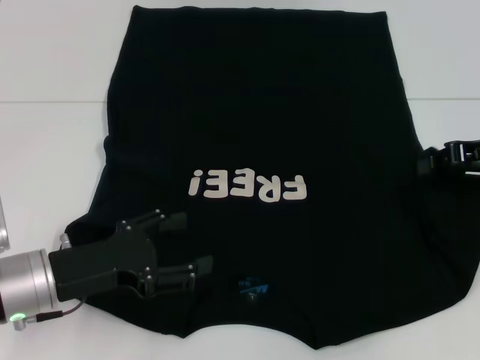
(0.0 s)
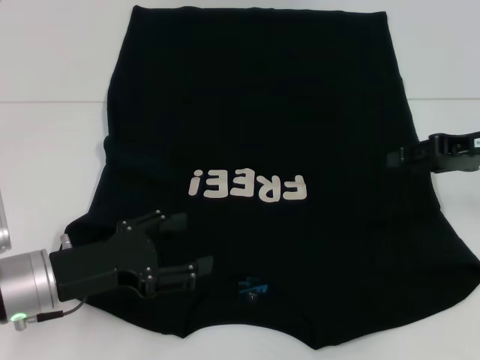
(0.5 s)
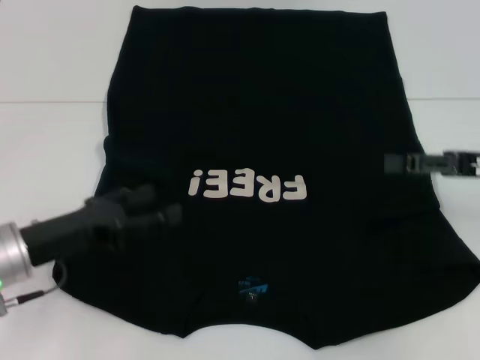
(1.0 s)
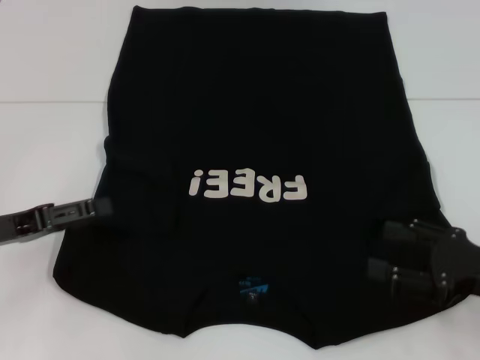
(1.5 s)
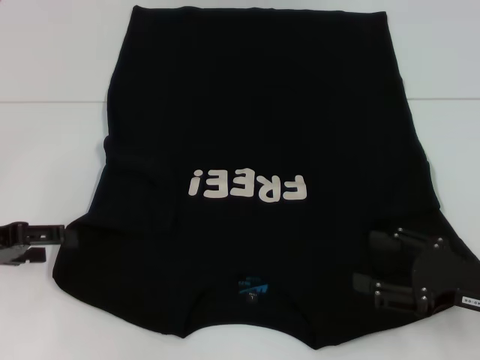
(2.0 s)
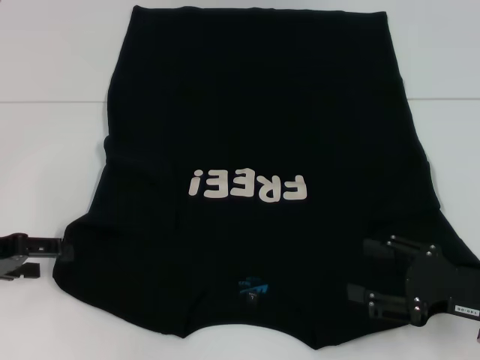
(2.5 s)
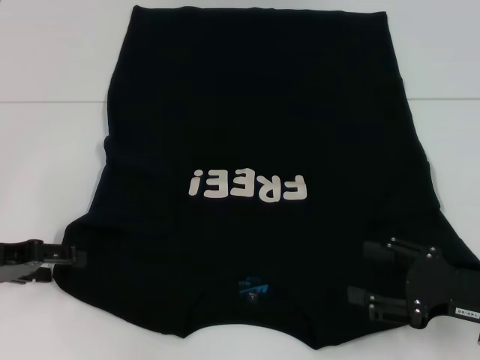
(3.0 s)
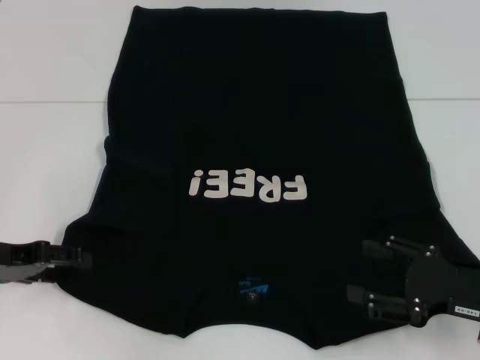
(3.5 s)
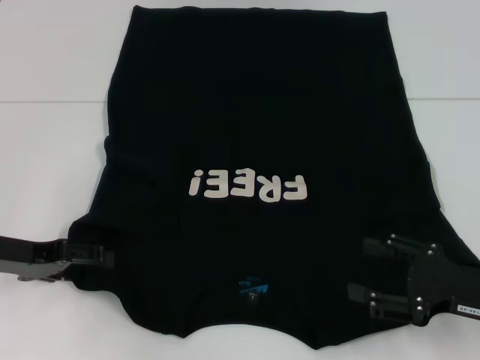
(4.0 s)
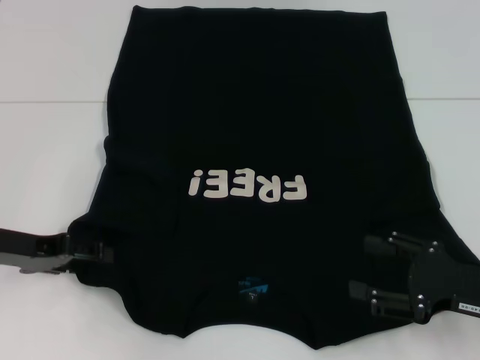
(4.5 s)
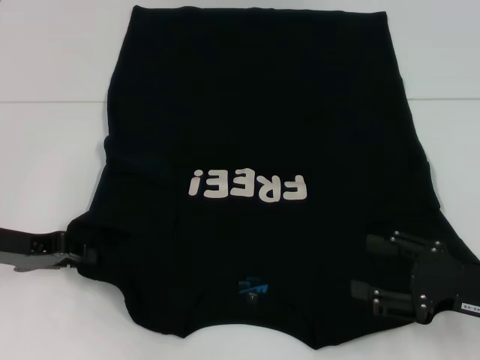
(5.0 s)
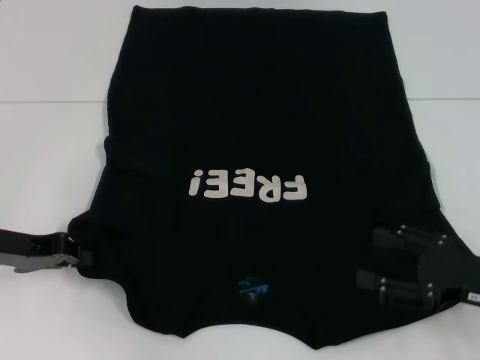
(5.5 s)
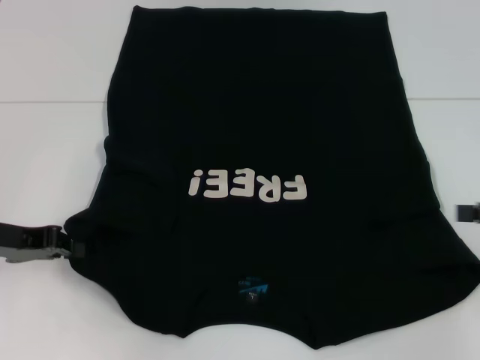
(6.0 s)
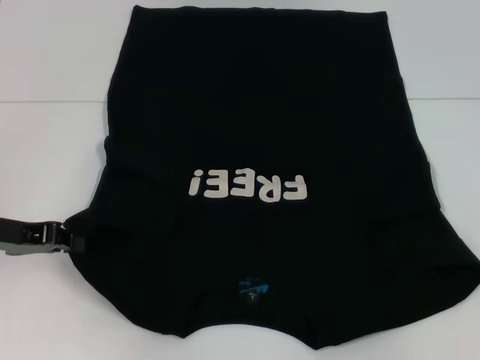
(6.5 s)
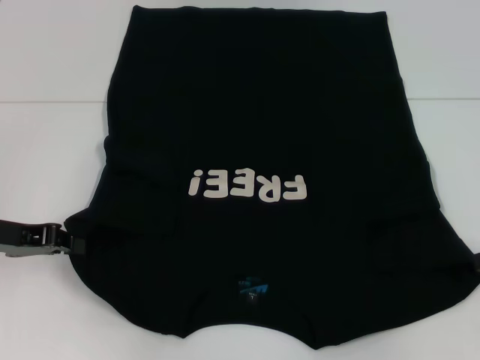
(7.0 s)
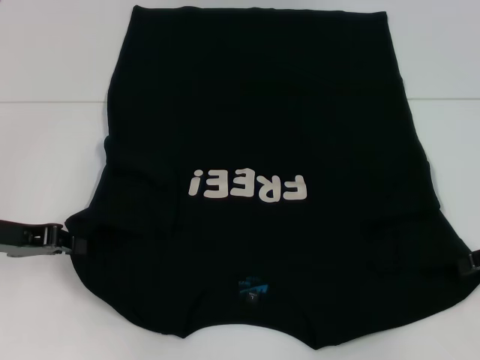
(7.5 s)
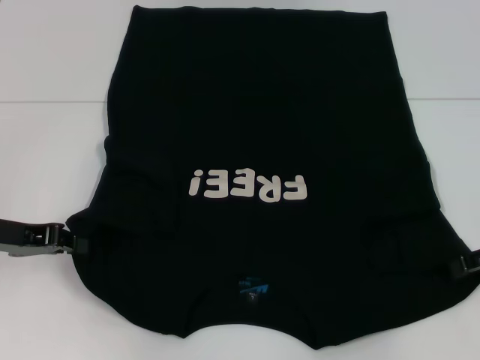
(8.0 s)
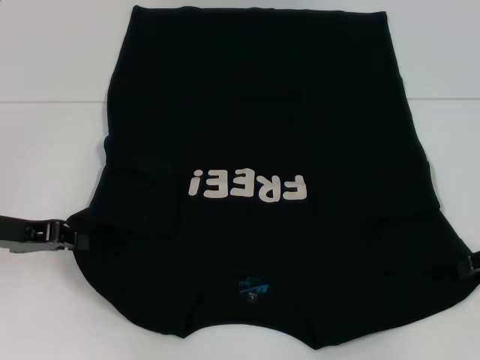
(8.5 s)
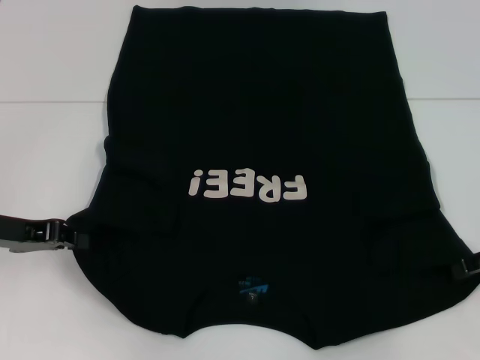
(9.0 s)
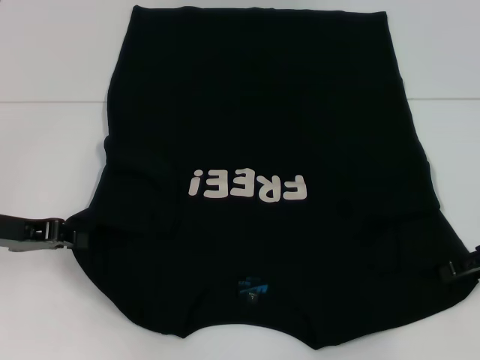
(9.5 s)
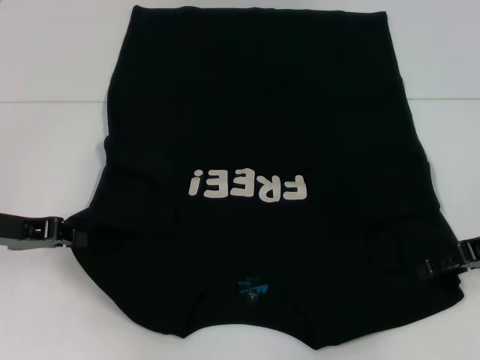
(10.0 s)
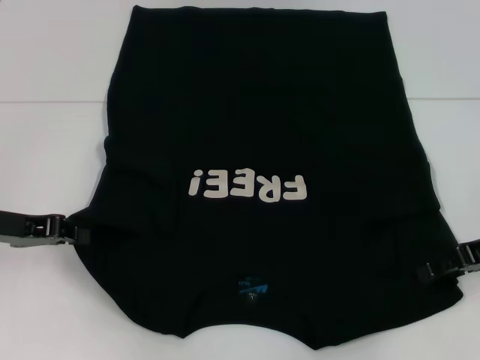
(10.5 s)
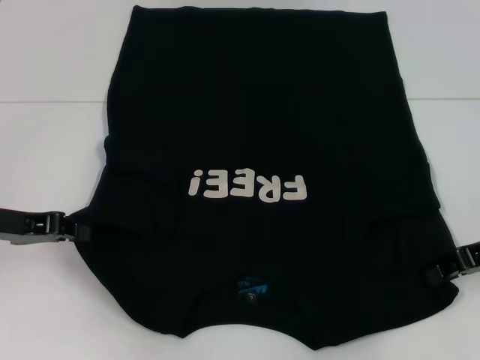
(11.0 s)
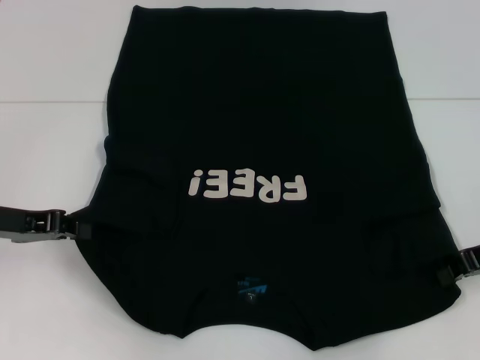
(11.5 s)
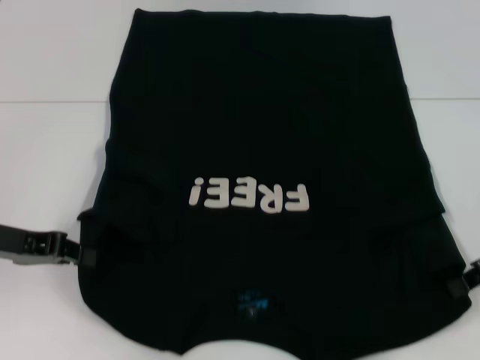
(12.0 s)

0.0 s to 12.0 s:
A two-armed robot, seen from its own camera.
Step, 1.5 to 5.0 s: Grab the bottom left corner with your left hand.
Step, 5.5 to 11.5 s: Grab the bottom right corner with your right hand.
0.0 to 2.0 s: The left gripper is displaced to the left by roughly 10 cm; the right gripper moves backward and downward, about 15 cm, and opens.
2.0 to 4.0 s: The grippers make only small movements.
4.0 to 6.0 s: The right gripper goes roughly 10 cm upward and to the right. The left gripper closes its fingers.
8.0 to 10.0 s: There are only small adjustments of the grippers.
10.0 to 12.0 s: The right gripper closes up.

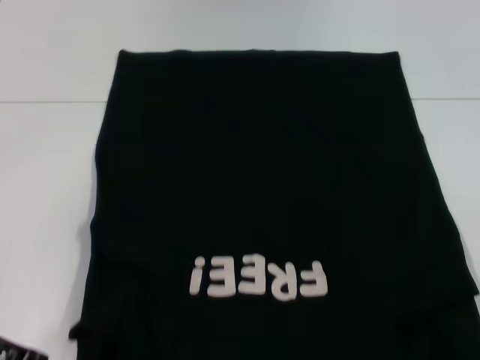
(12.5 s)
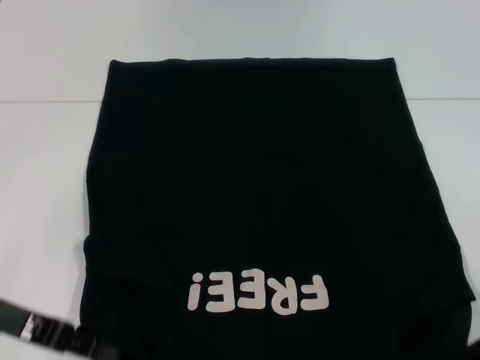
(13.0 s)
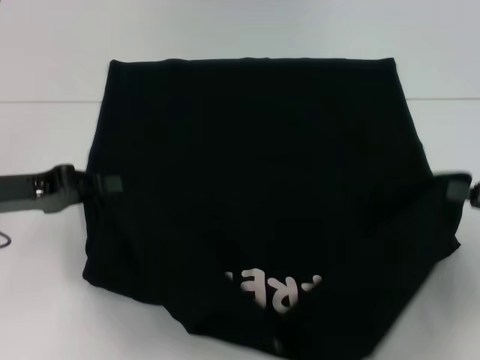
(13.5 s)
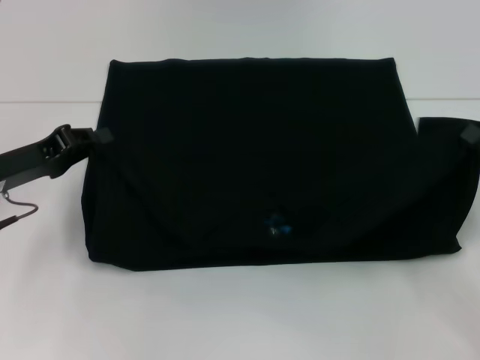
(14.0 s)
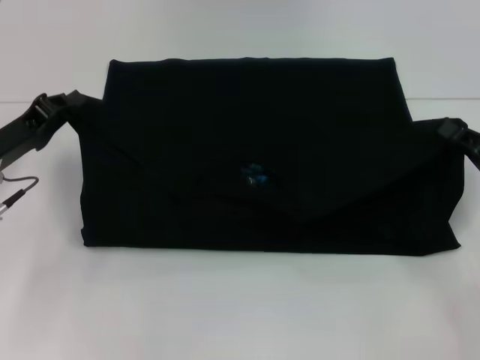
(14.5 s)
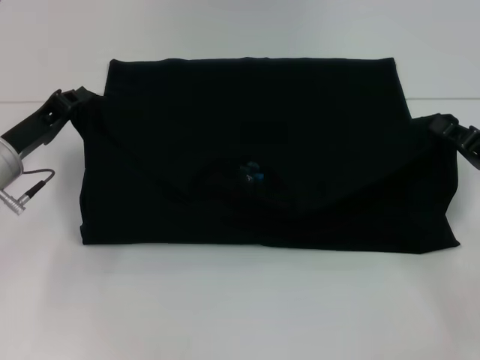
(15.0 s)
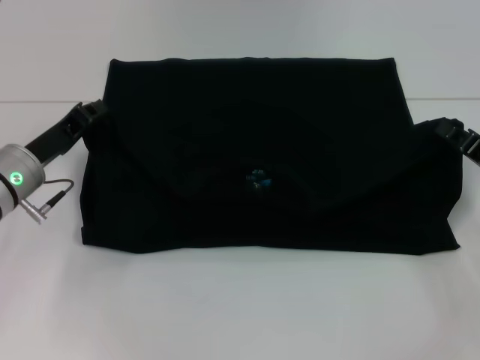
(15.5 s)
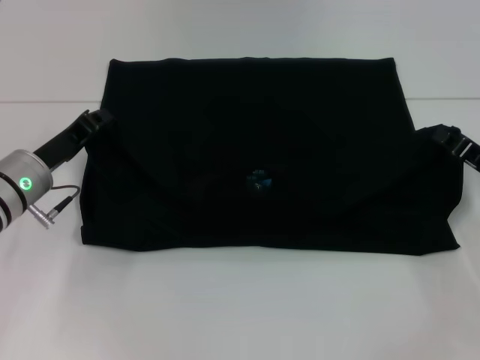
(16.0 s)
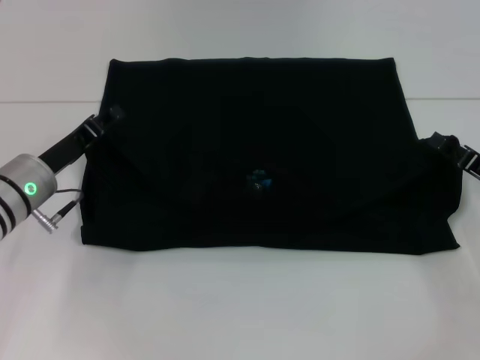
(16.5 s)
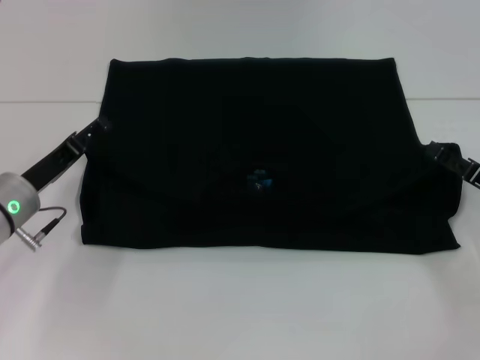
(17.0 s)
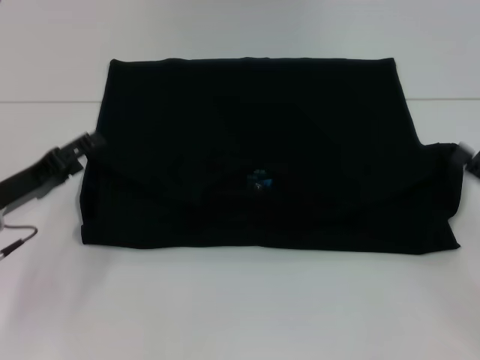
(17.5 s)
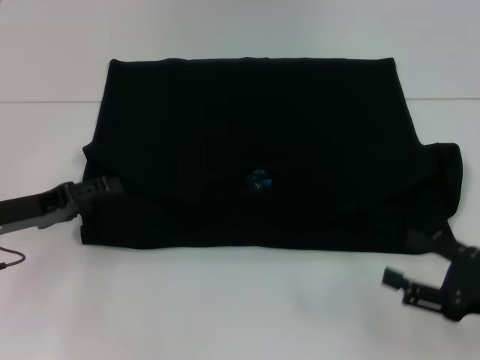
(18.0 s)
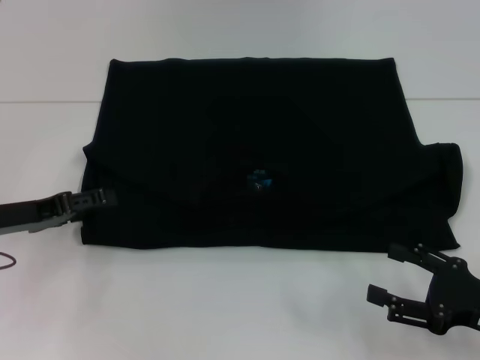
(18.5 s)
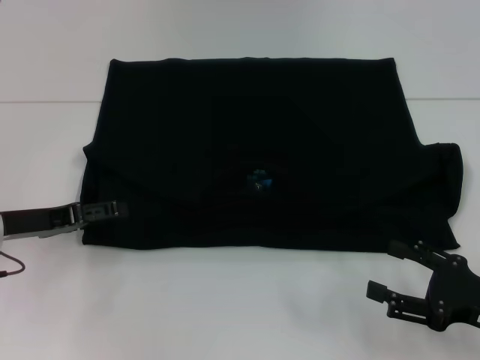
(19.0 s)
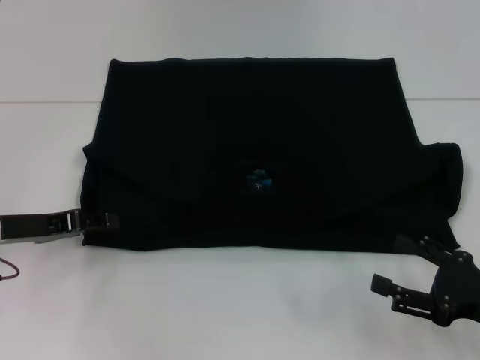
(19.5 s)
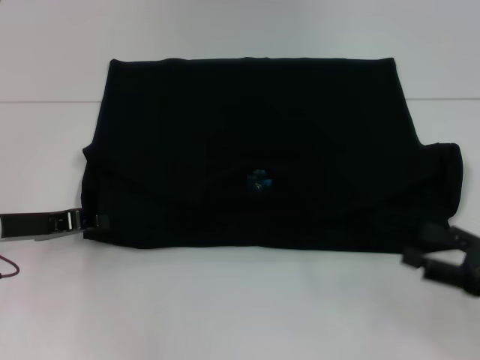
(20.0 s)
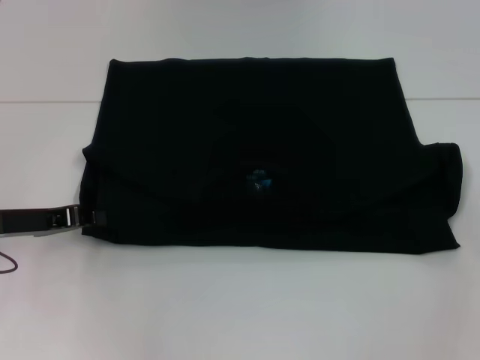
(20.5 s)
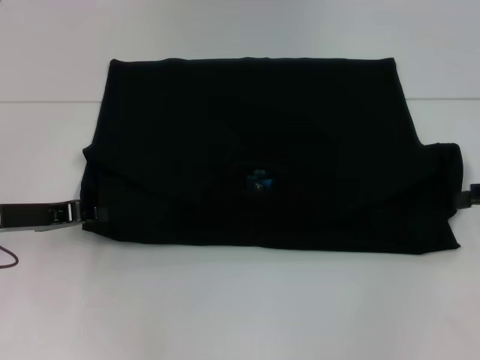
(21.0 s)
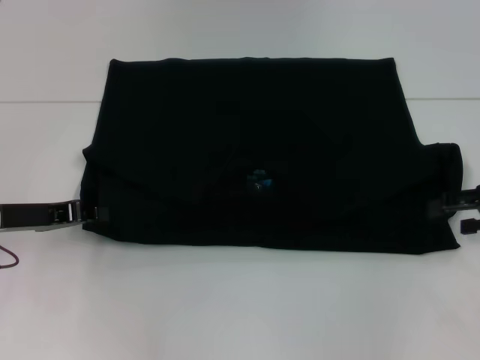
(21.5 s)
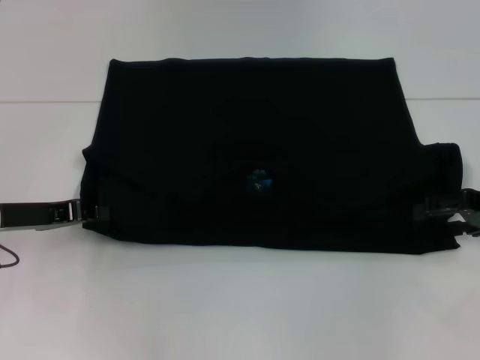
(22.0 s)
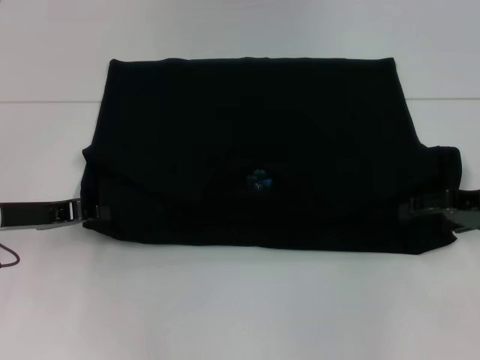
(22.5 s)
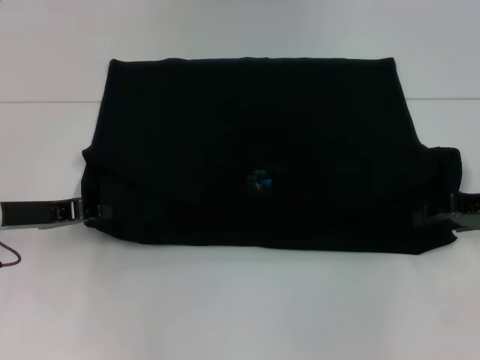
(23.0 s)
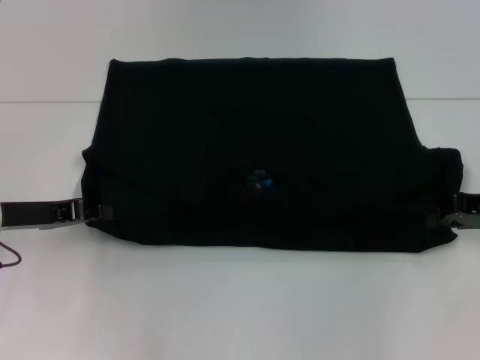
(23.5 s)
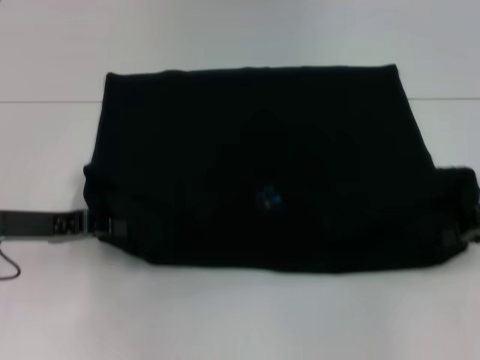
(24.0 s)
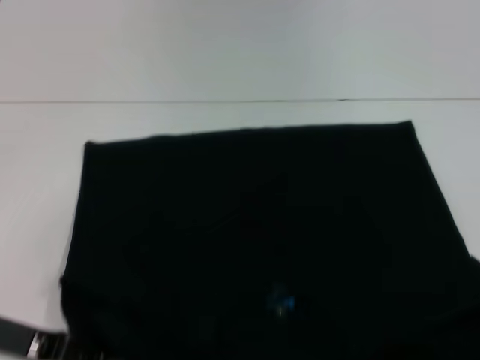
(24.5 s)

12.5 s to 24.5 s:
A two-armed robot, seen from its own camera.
Step, 12.5 to 17.0 s: Fold the clothes with your left hand.
Step, 12.5 to 17.0 s: Fold the clothes with your right hand.
12.5 to 14.5 s: The left gripper moves forward, approximately 10 cm; the right gripper travels downward by roughly 5 cm.
14.5 to 16.5 s: The left gripper moves some 5 cm.
16.5 to 18.5 s: The left gripper shifts approximately 5 cm to the left, and opens up; the right gripper goes approximately 10 cm backward, and opens its fingers.
18.5 to 20.5 s: The left gripper closes its fingers. The right gripper travels upward, to the right and forward by about 15 cm.
20.5 to 22.5 s: The right gripper heads to the left and forward, covering roughly 10 cm.
22.5 to 24.5 s: The grippers both shift backward by roughly 10 cm. The right gripper closes its fingers.

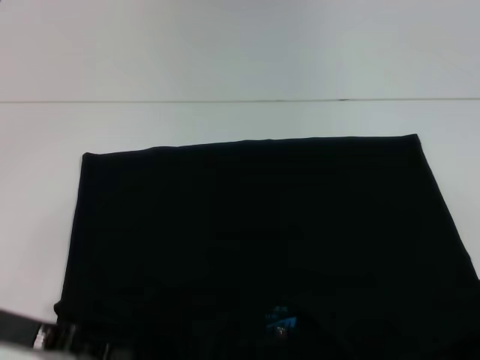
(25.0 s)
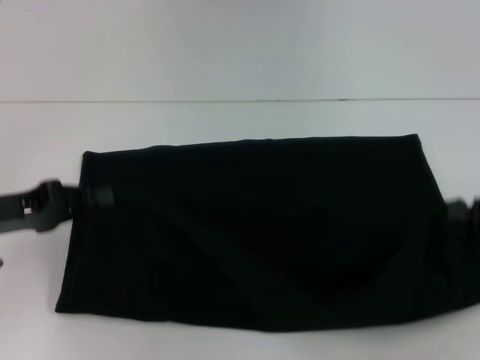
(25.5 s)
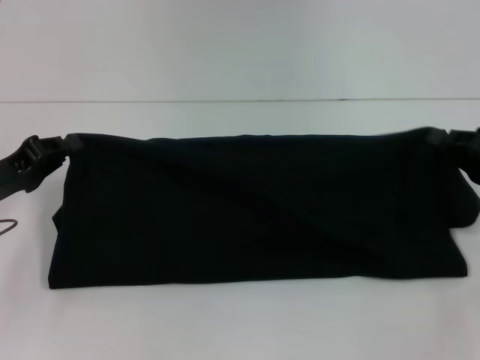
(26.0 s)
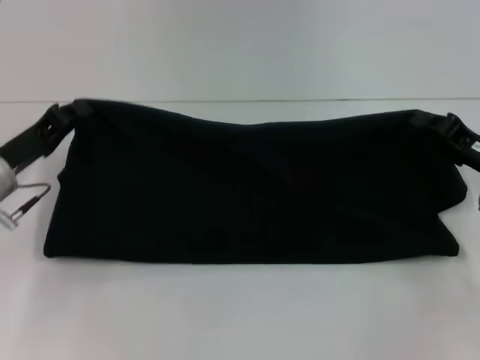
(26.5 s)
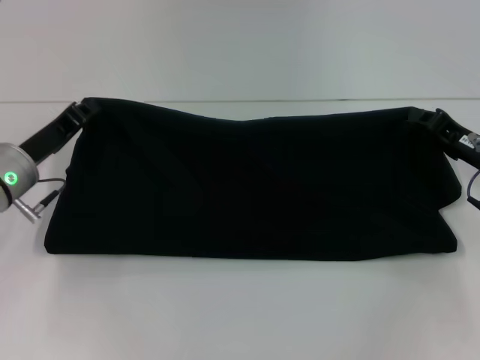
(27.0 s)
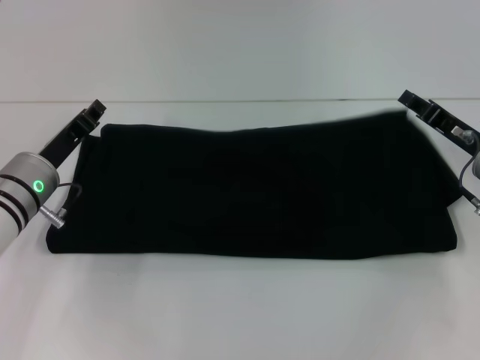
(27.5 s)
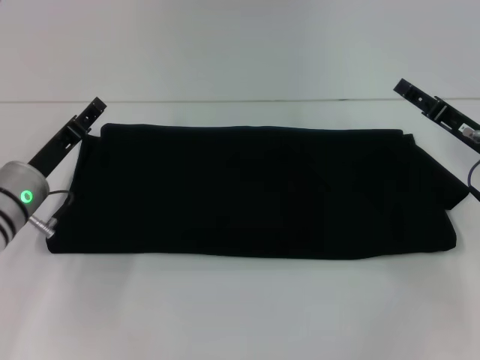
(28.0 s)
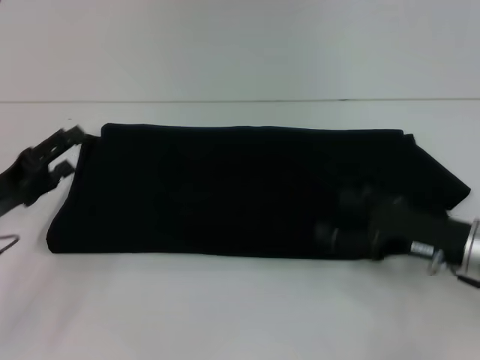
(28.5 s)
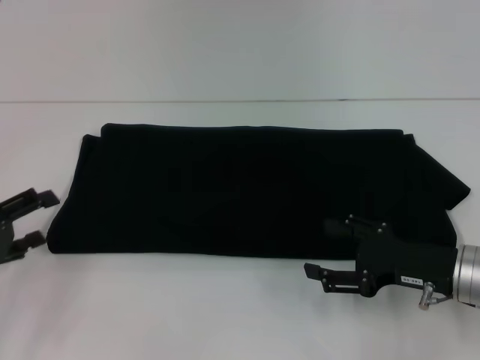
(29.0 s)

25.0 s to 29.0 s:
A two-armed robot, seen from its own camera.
Step, 25.0 to 28.0 s: Fold the clothes with your right hand.
25.0 to 27.0 s: The right gripper is displaced forward and to the left by some 10 cm, while the left gripper travels forward by roughly 10 cm.
27.0 to 29.0 s: The right gripper shifts roughly 10 cm backward, and opens; the left gripper shifts some 15 cm backward and to the left, and opens up.
